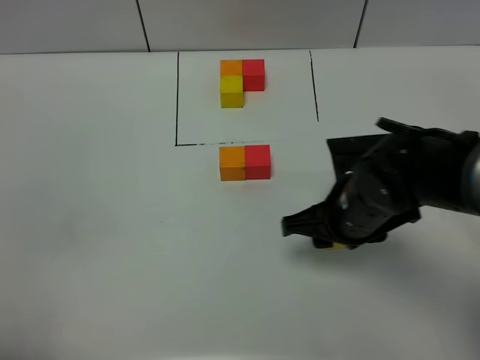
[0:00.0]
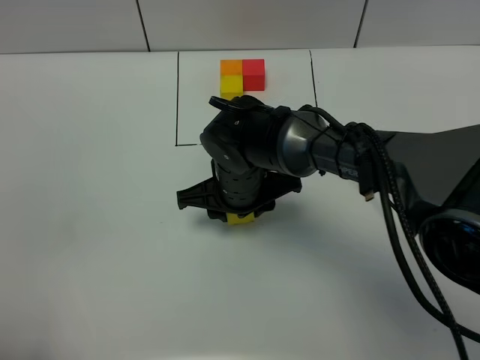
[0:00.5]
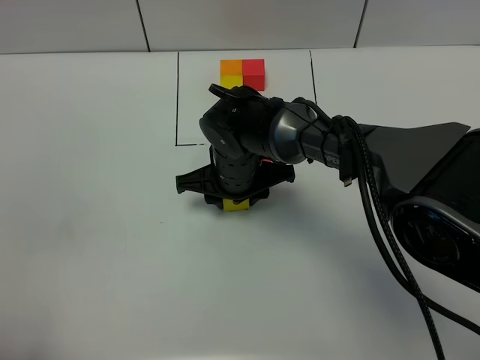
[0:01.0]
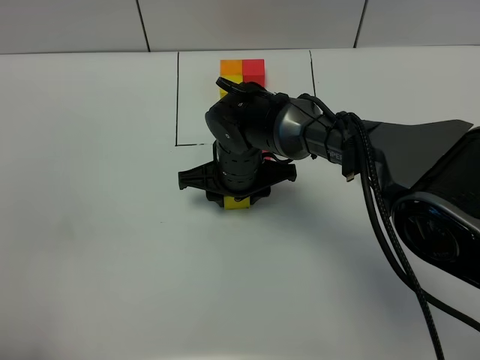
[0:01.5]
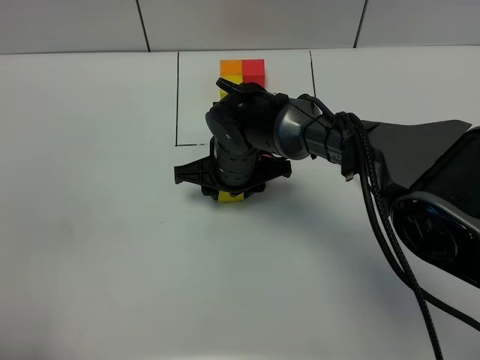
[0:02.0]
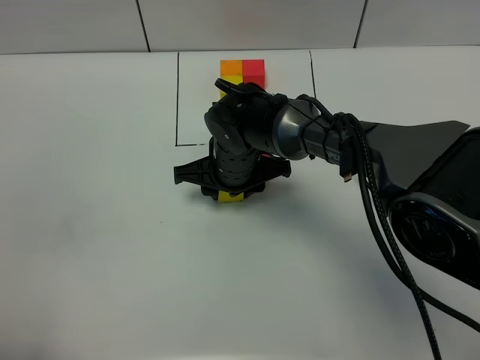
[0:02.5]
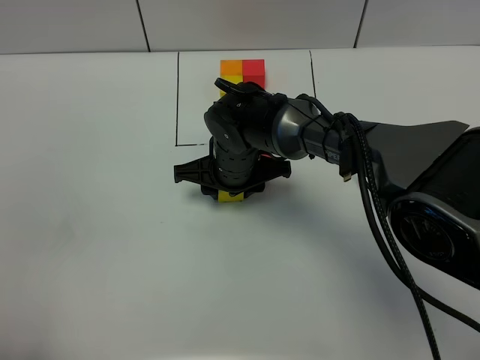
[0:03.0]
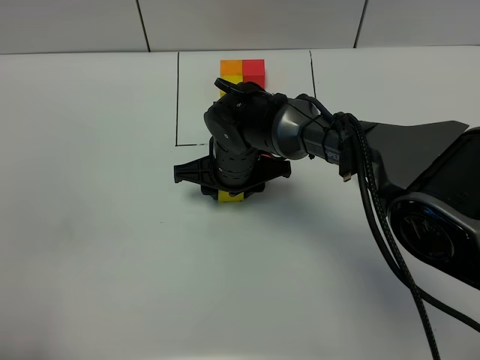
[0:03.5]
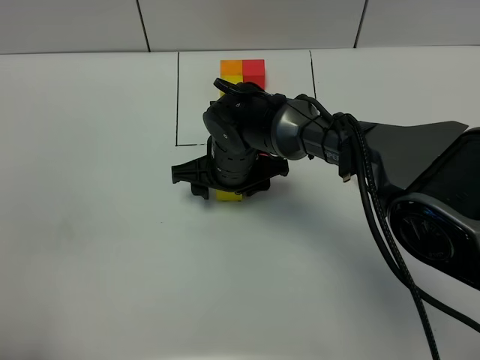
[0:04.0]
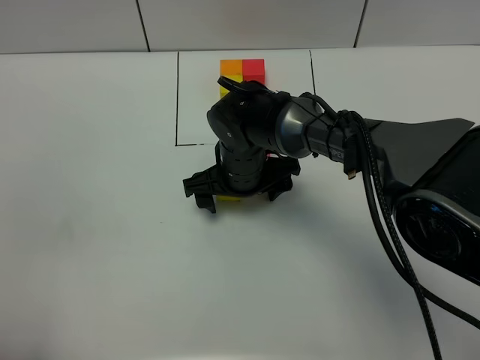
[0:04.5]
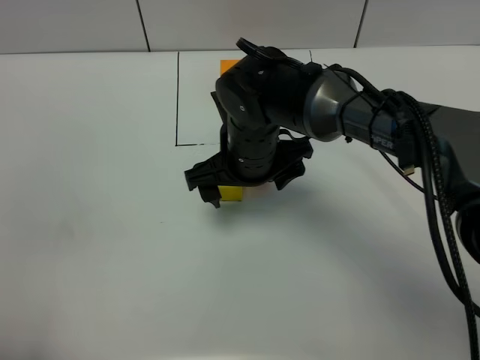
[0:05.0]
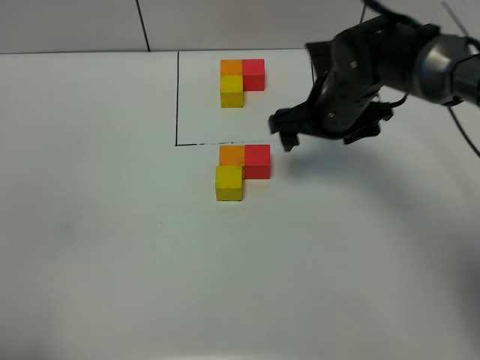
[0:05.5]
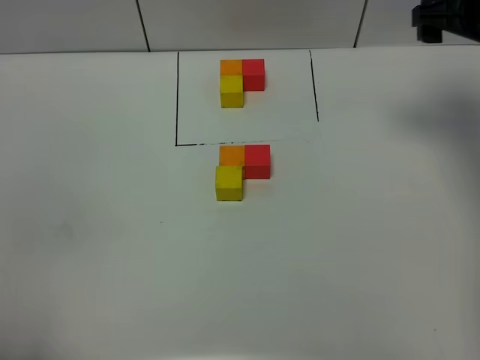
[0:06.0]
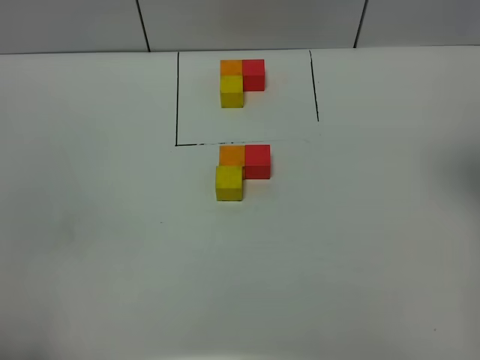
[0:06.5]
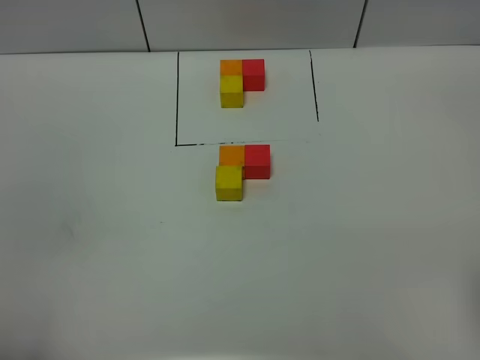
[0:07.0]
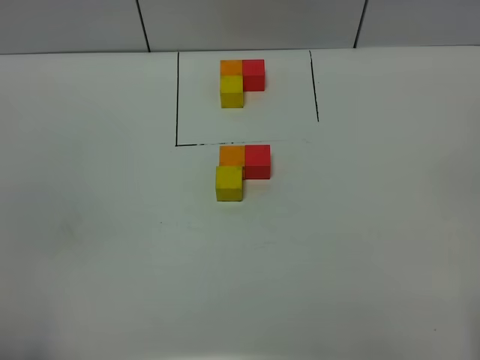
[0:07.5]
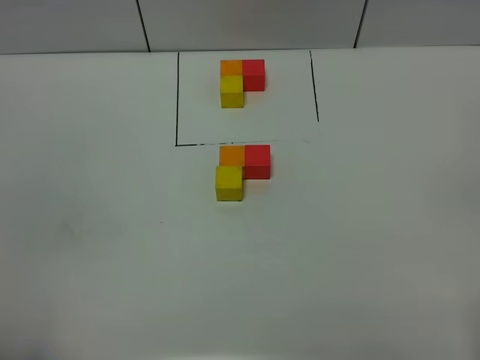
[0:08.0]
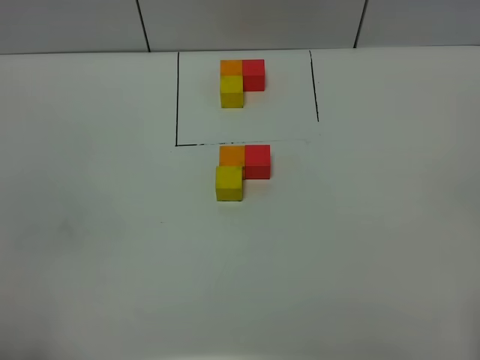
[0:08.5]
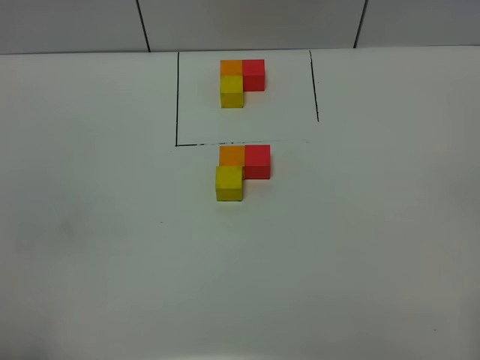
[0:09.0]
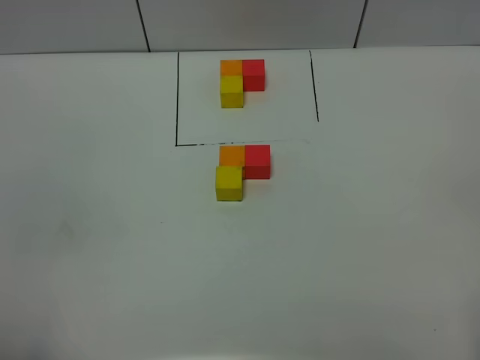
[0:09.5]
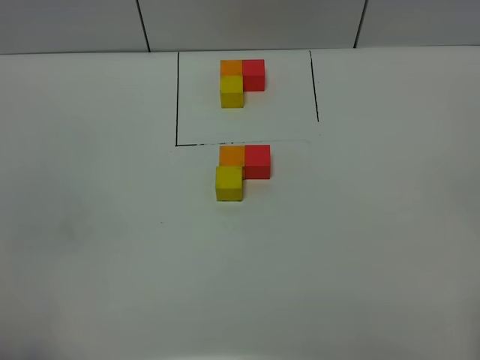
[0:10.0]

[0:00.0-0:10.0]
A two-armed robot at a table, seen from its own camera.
Task of the whole recording: According to the building block template in front, assemble the scattered blocks together.
Step, 0:00.0 to 0:04.0: Put the yellow build block on the behind of the orange build block.
0:00.0 to 0:02.0: The right gripper is displaced to the left and forward by approximately 15 cm.
0:02.0 to 0:04.0: The right gripper opens up.
0:04.0 to 0:06.0: The right gripper is displaced to the right and upward by roughly 35 cm, and opens.
0:06.0 to 0:08.0: The right gripper travels backward by about 40 cm.
0:08.0 to 0:10.0: Both grippers stay about where they are.

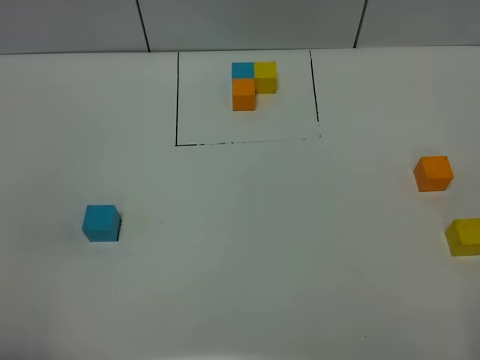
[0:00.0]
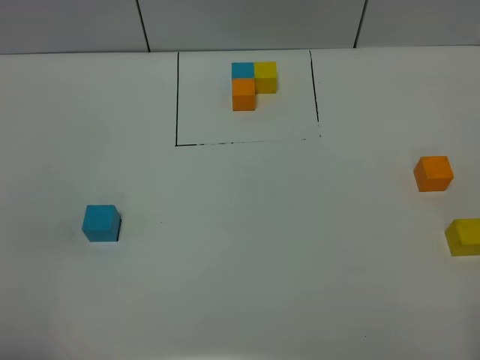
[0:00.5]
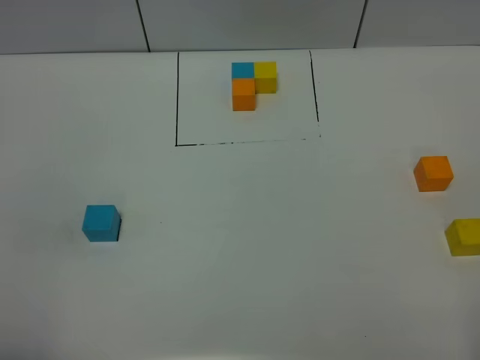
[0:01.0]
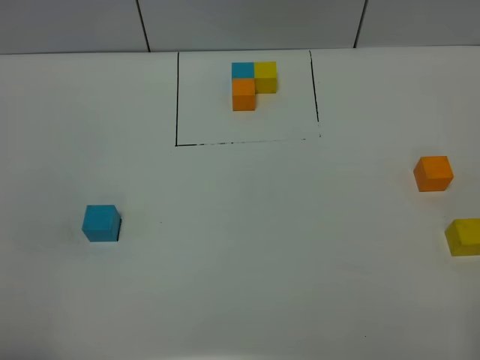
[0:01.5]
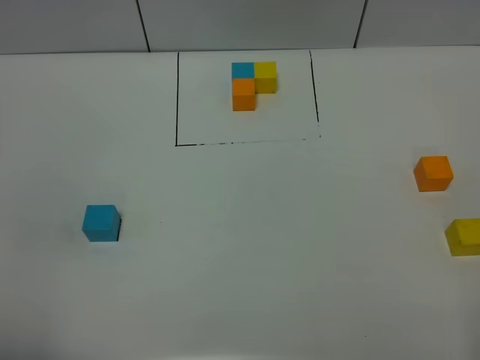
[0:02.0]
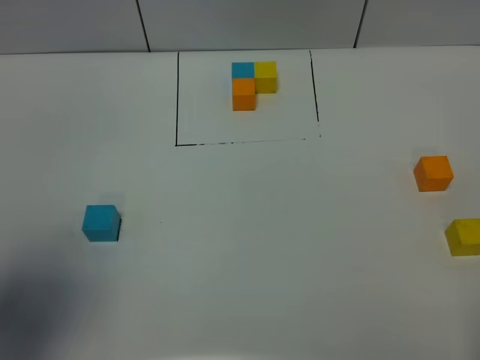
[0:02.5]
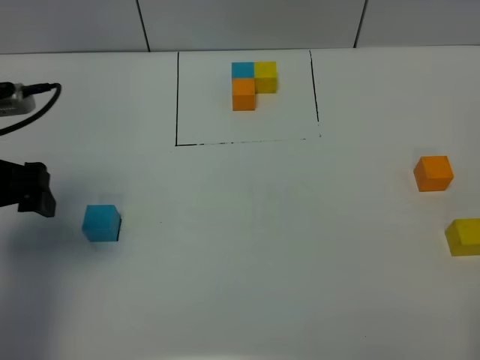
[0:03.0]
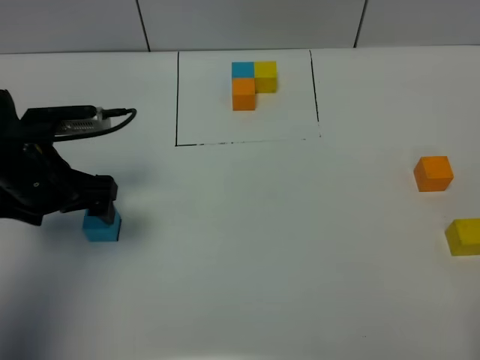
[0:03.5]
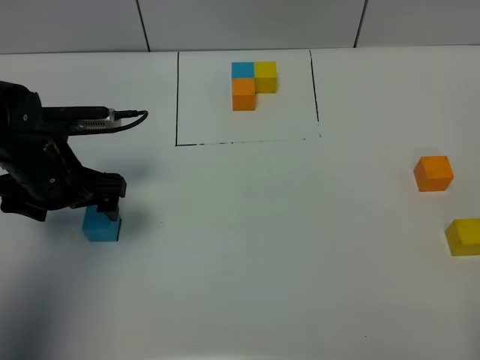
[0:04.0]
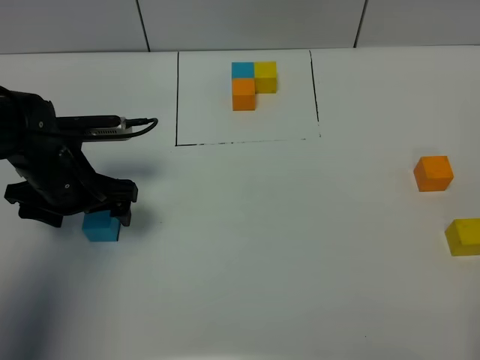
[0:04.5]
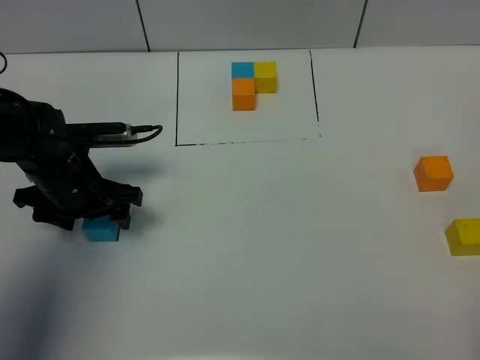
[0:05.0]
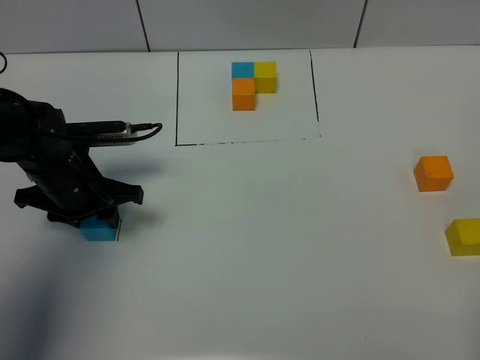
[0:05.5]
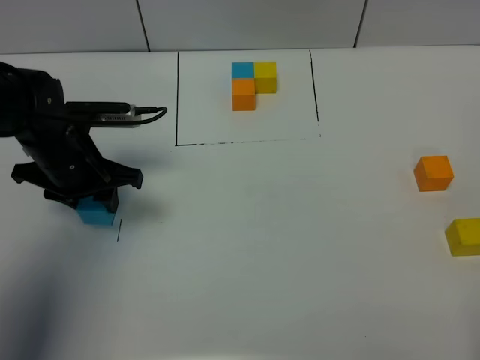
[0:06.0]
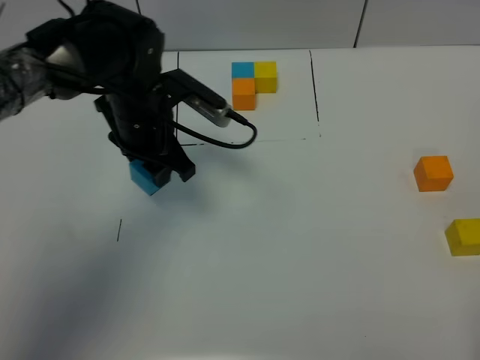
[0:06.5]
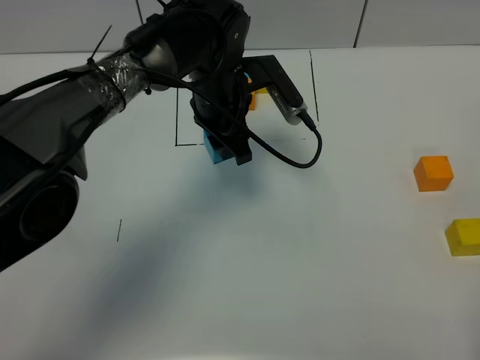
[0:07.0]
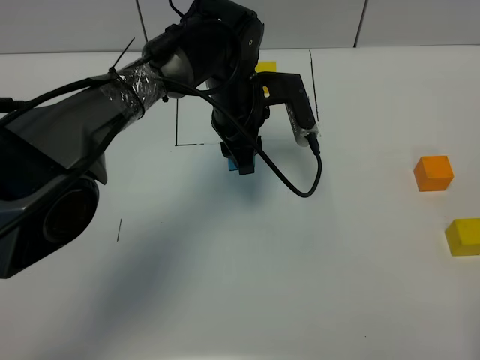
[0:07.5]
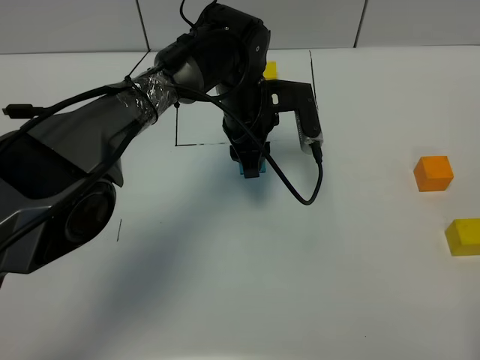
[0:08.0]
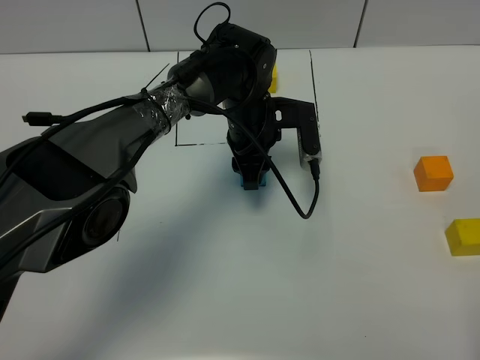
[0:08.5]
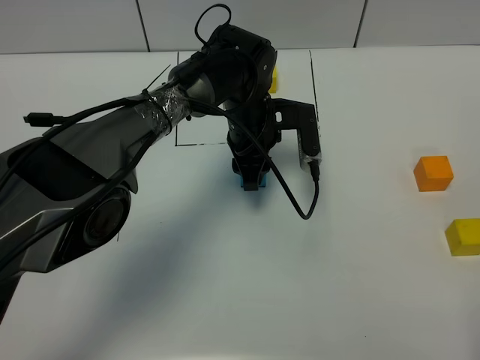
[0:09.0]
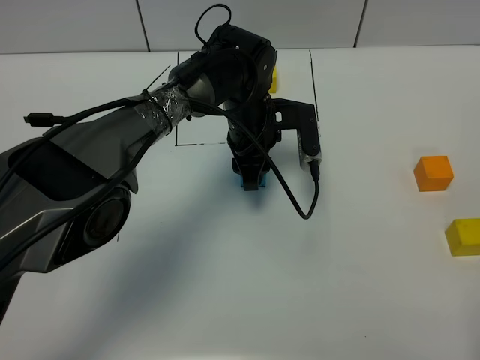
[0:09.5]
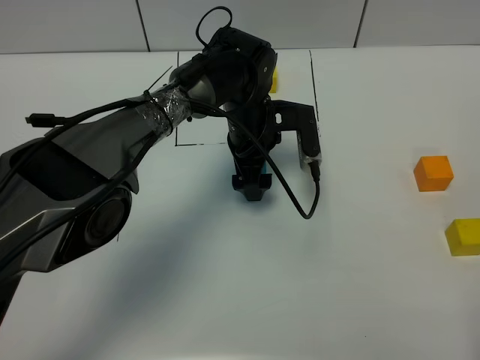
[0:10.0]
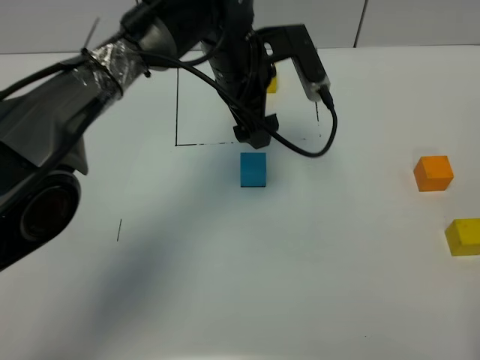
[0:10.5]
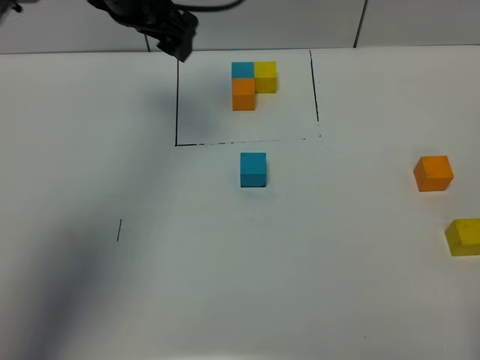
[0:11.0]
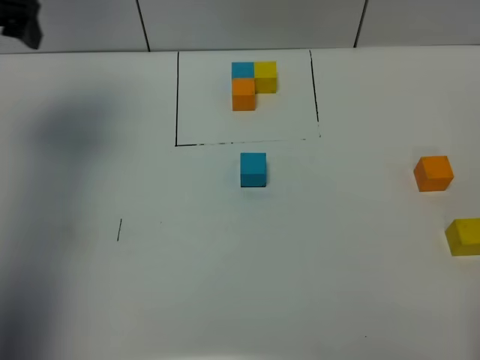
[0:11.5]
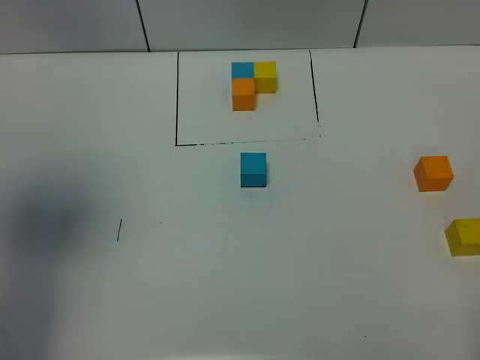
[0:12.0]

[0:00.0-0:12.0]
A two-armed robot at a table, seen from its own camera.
Task of the whole recording: According to the building block template in front, assemble the scattered blocks together.
Step, 0:00.0 to 0:10.0: Put the blue build block in the center of the table.
0:02.0 to 0:04.0: The left gripper is displaced forward by about 30 cm.
0:04.0 to 0:06.0: The left gripper closes up.
0:06.0 to 0:08.0: The left gripper moves to the right, roughly 20 cm.
0:08.0 to 0:10.0: The left gripper opens up.
0:10.0 to 0:12.0: The left gripper heads to the left, upward and backward, covering about 50 cm.

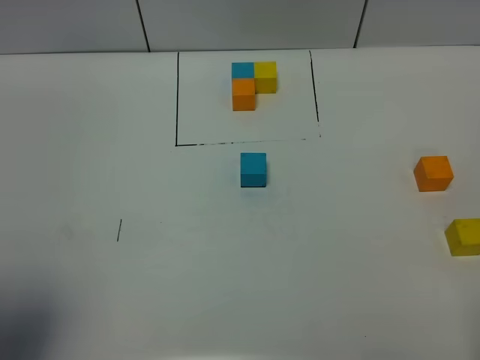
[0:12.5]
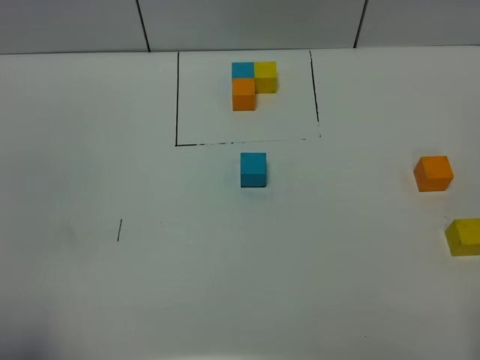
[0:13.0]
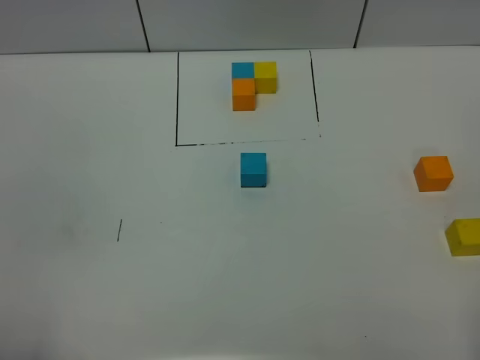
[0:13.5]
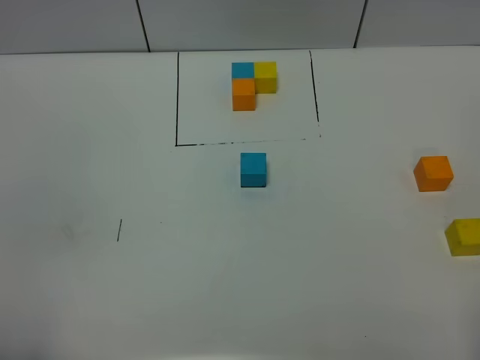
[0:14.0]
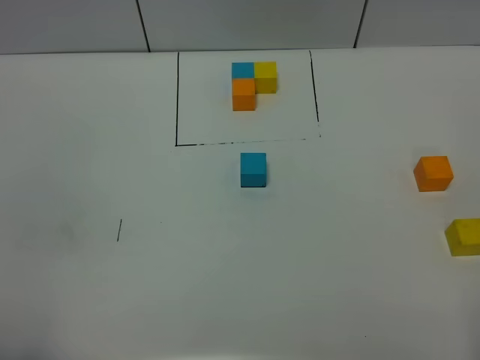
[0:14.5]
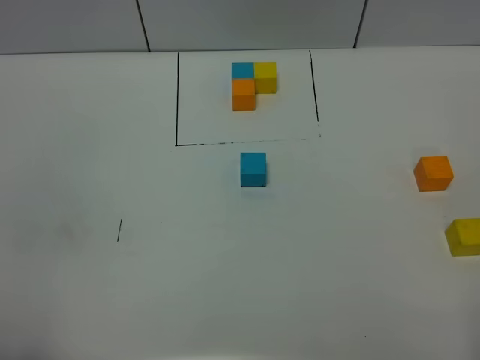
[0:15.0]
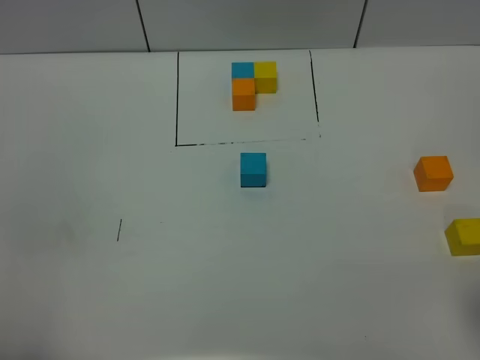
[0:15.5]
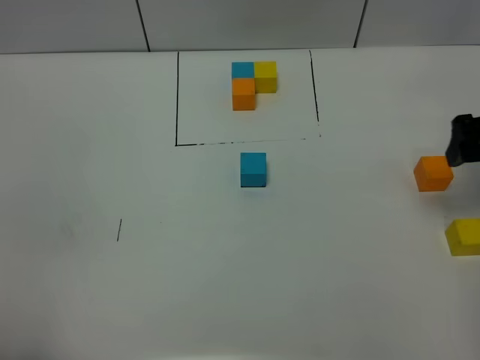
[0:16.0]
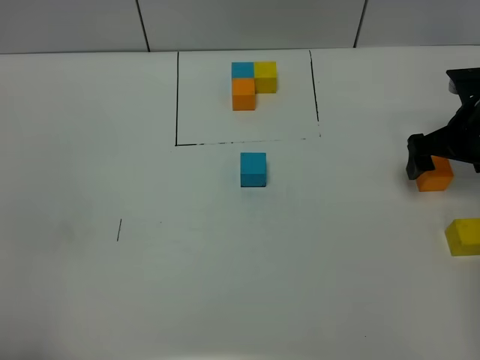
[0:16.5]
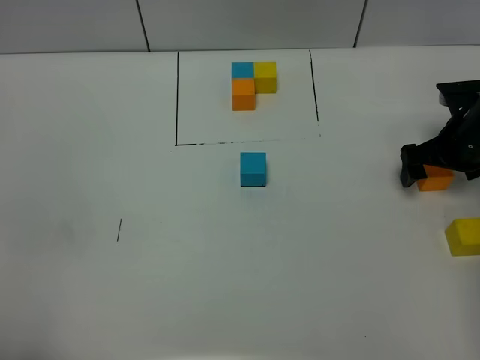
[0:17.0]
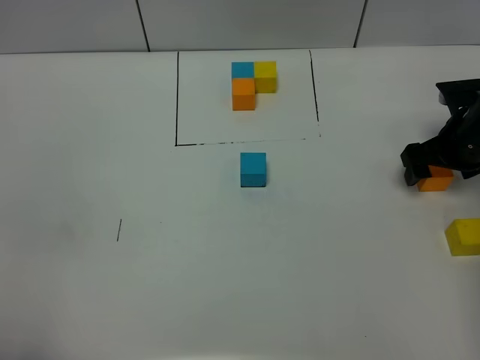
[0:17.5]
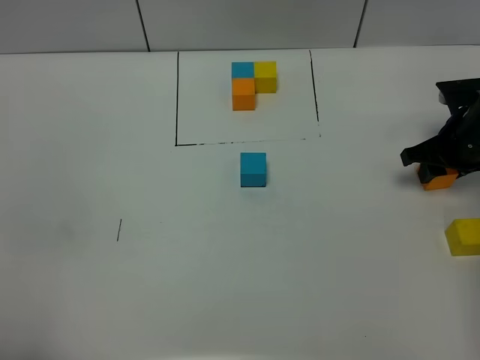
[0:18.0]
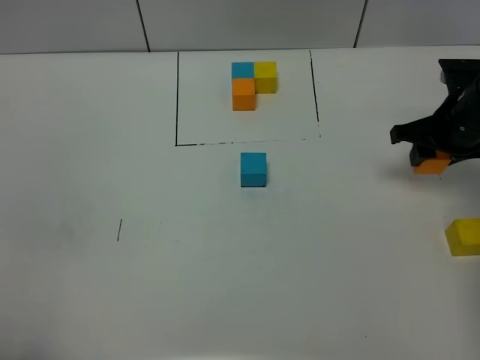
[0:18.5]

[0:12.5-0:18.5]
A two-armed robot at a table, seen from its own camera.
Task of the whole recording: According to the building block template in front, assemble the scattered blocks together.
0:12.5 to 0:14.5: The left gripper moves downward and backward, roughly 10 cm, and closes up.
0:14.5 to 0:16.5: The right gripper shifts about 40 cm forward.
0:16.5 to 0:18.5: The right gripper closes up.
